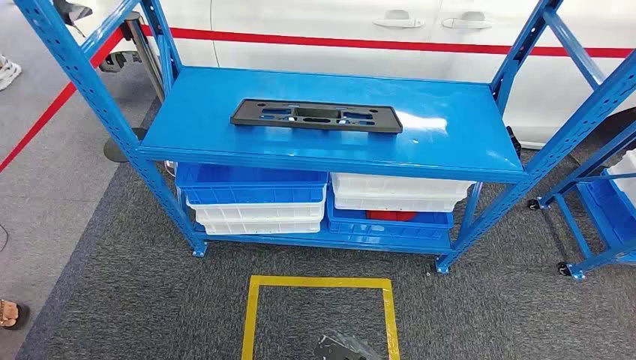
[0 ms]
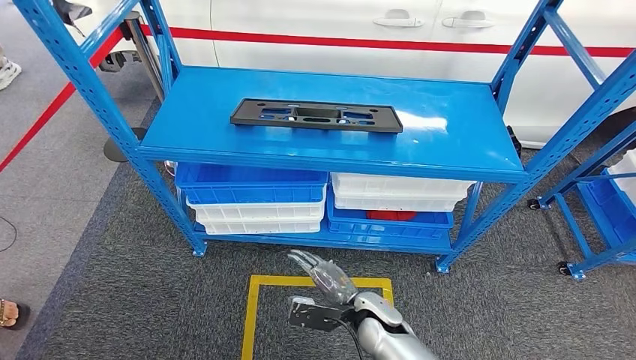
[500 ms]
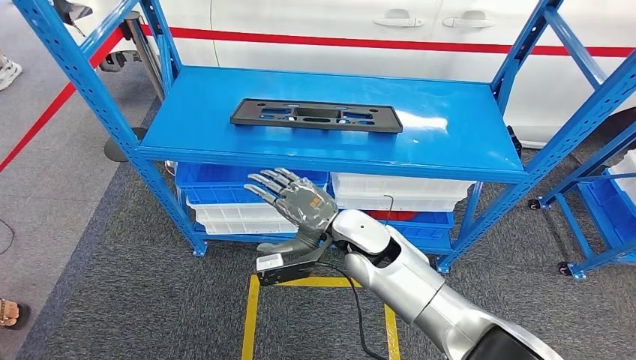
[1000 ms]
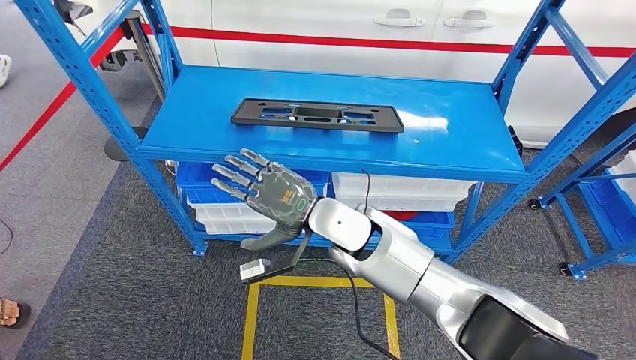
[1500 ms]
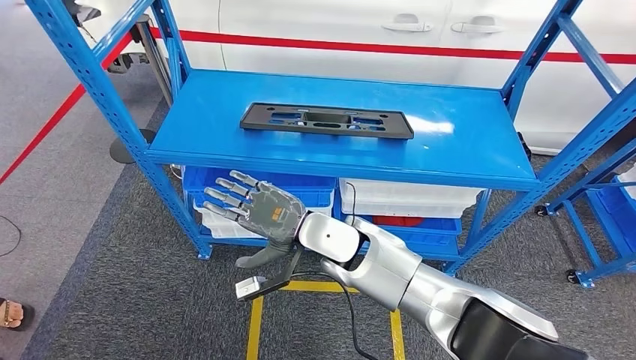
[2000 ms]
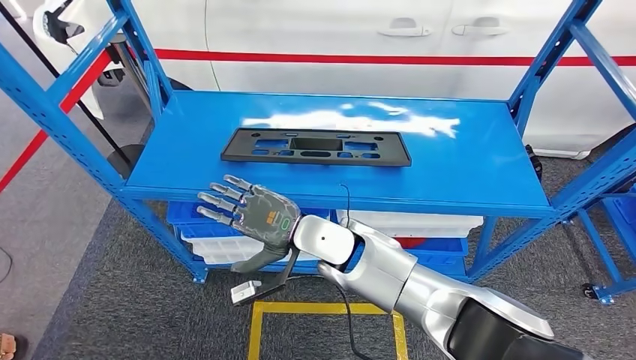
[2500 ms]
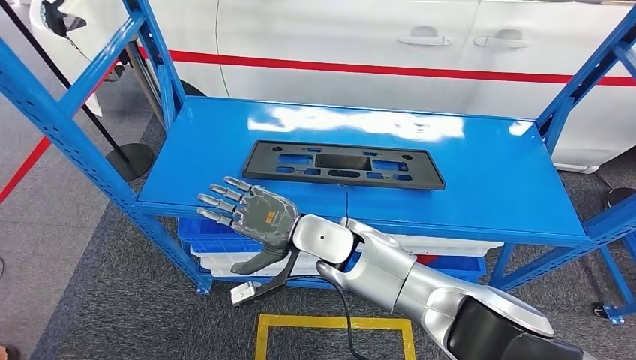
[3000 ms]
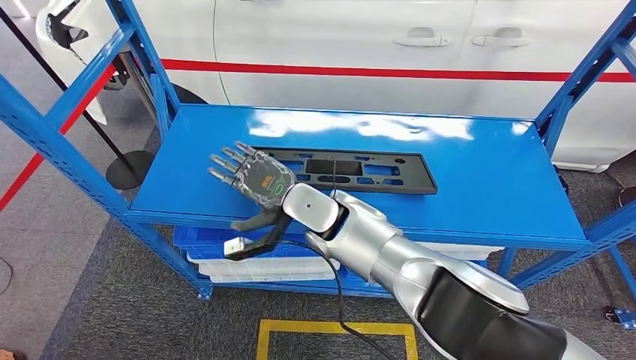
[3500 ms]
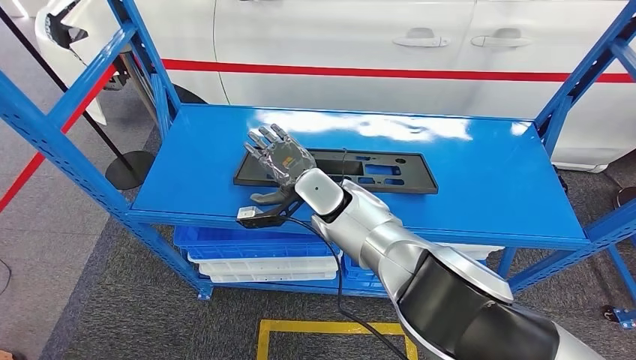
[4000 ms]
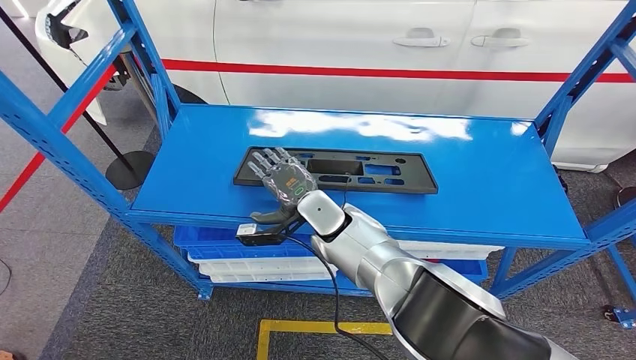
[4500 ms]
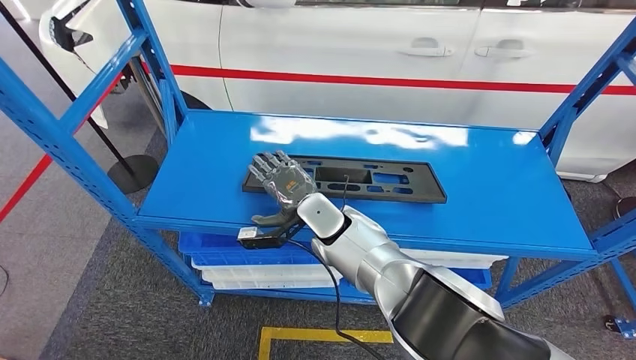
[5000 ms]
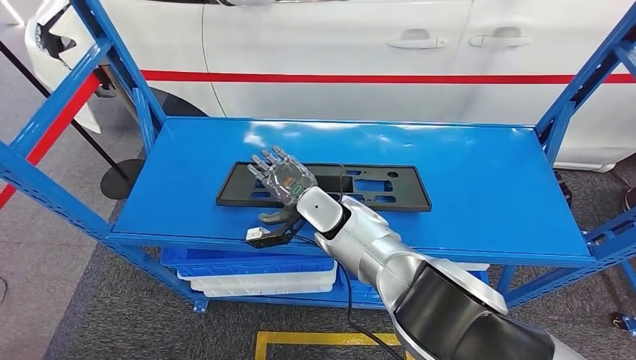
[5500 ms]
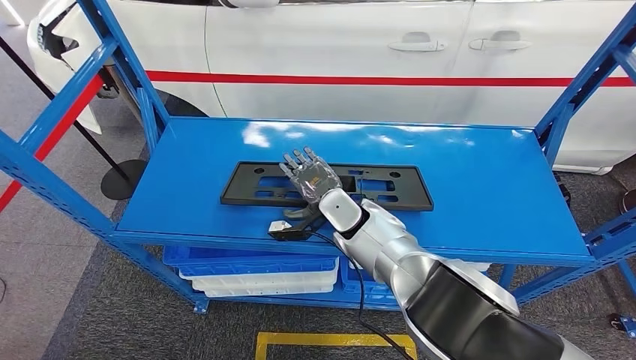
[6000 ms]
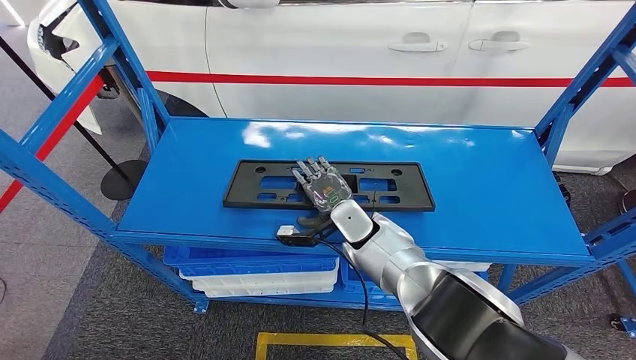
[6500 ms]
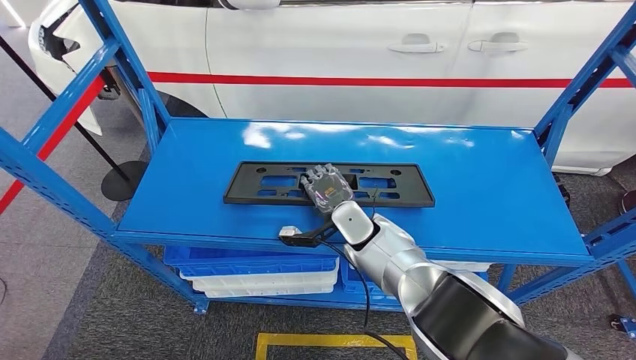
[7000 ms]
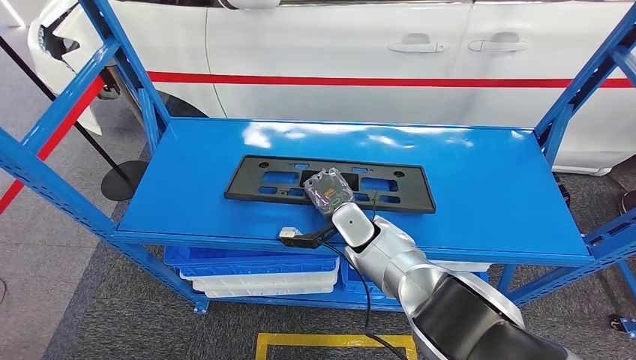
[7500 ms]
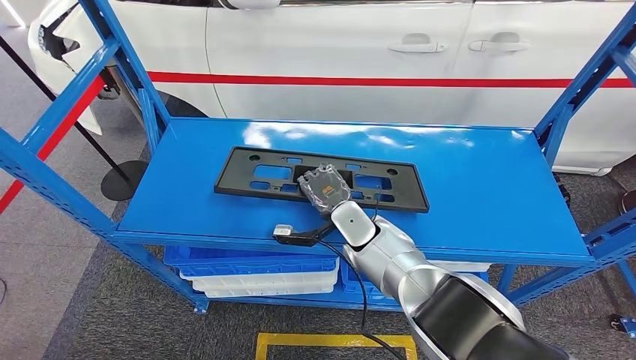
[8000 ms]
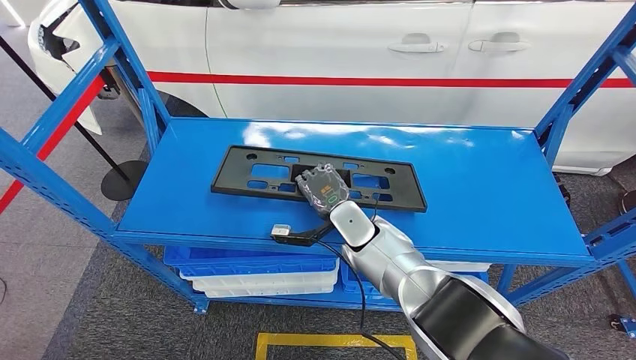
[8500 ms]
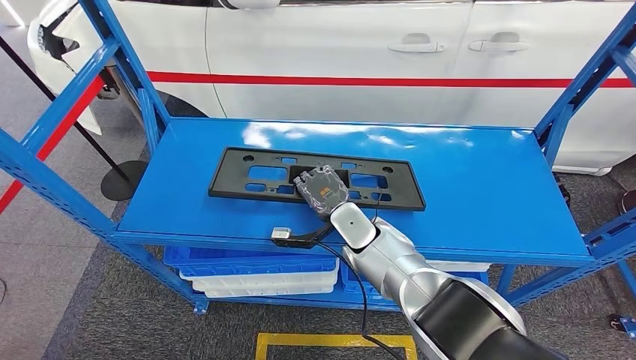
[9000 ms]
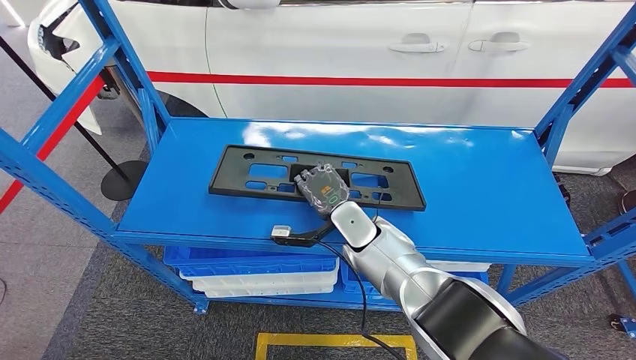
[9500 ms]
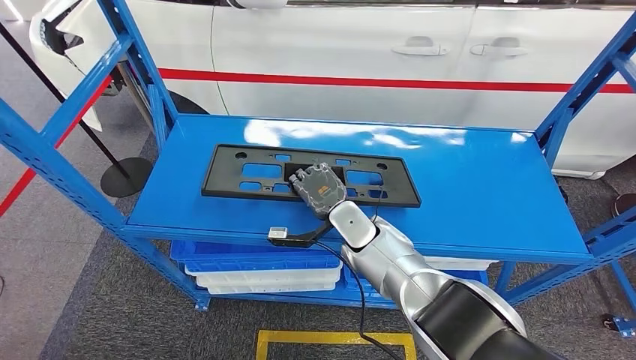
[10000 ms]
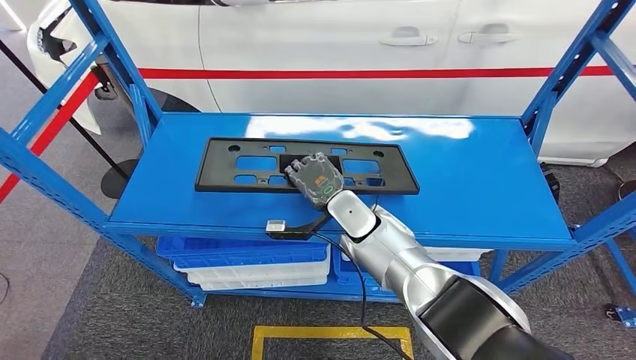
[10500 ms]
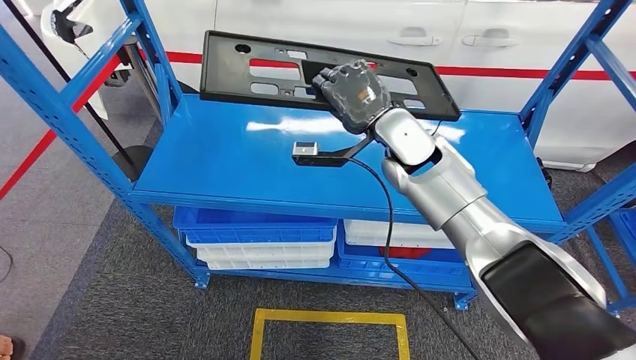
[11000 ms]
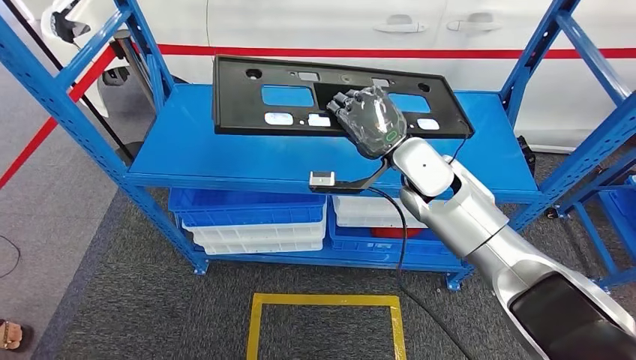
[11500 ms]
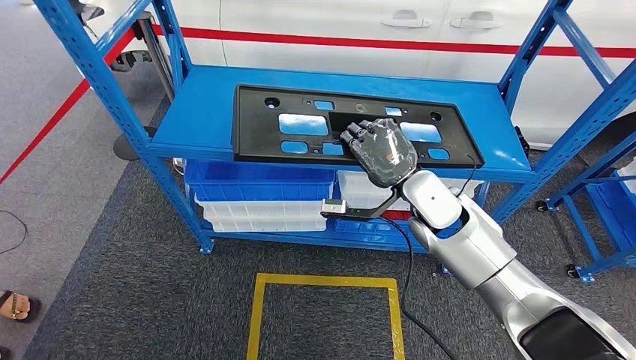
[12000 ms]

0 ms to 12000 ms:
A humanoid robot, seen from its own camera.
Step, 0 ms to 9500 ms: Pick up the large material from the shelf.
6000 ms to 8000 ms: The hands move only a little.

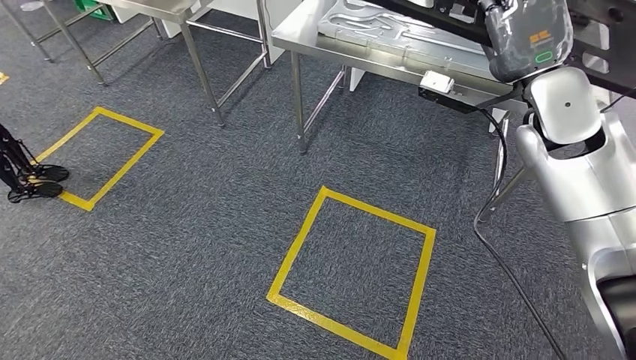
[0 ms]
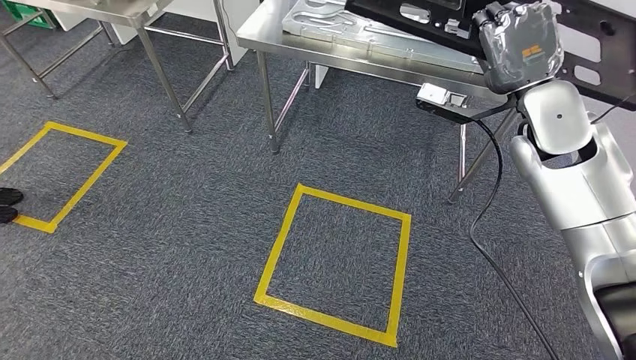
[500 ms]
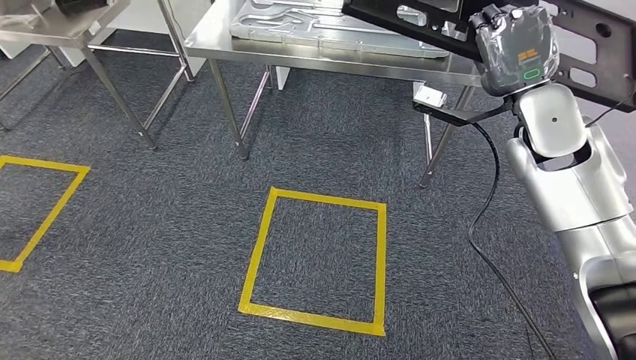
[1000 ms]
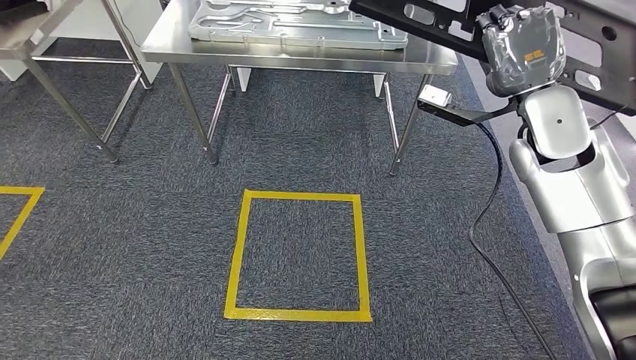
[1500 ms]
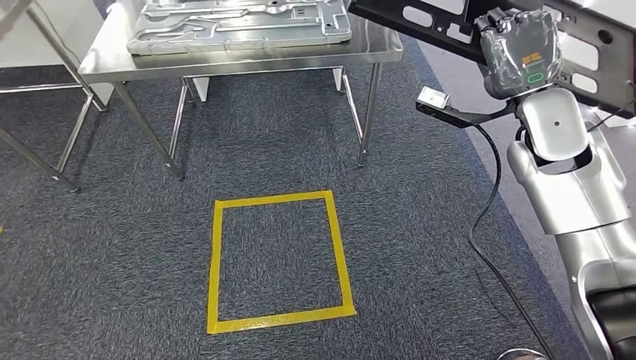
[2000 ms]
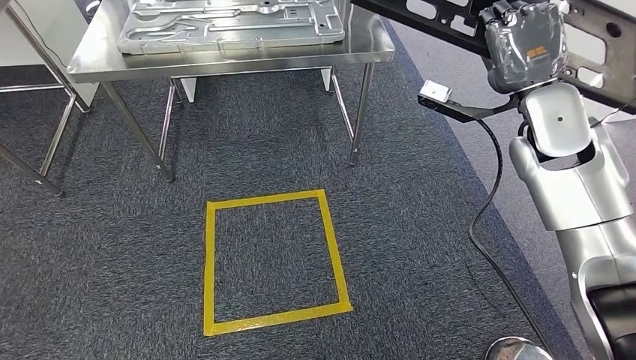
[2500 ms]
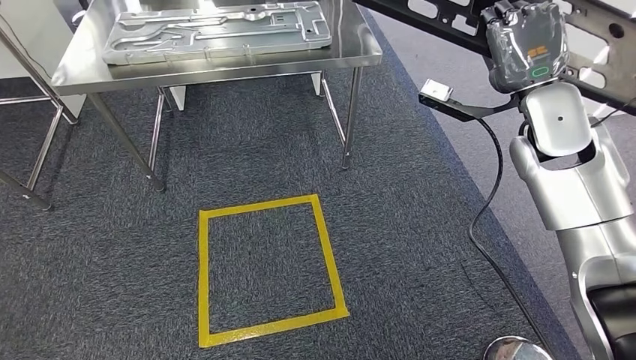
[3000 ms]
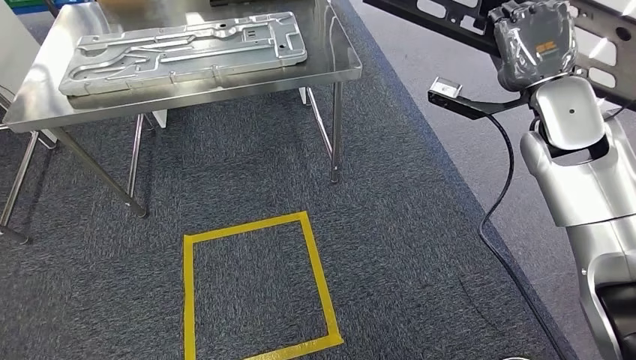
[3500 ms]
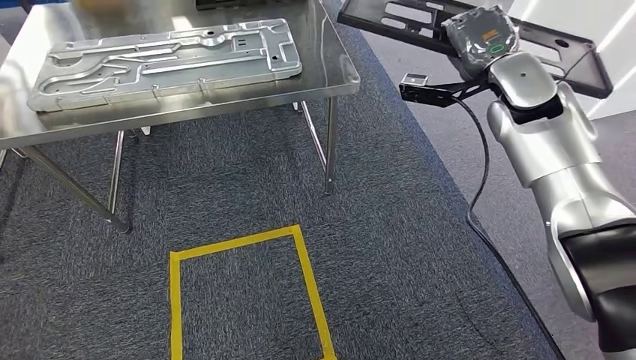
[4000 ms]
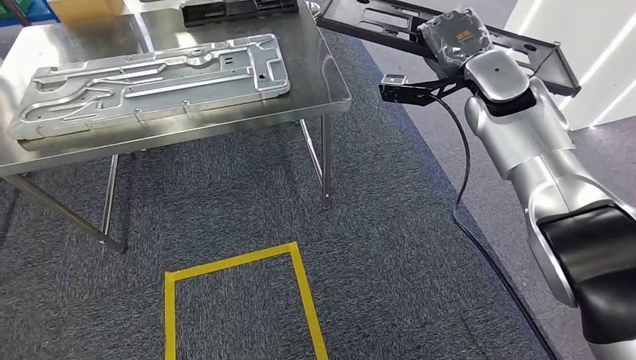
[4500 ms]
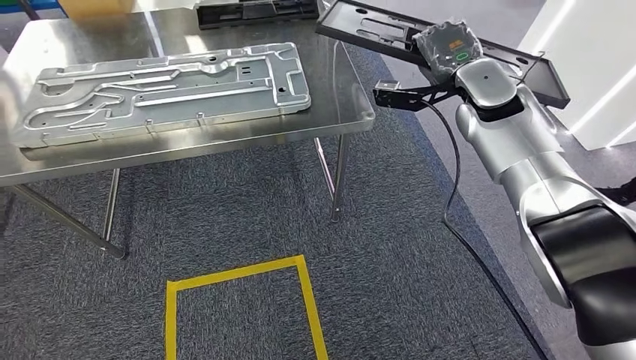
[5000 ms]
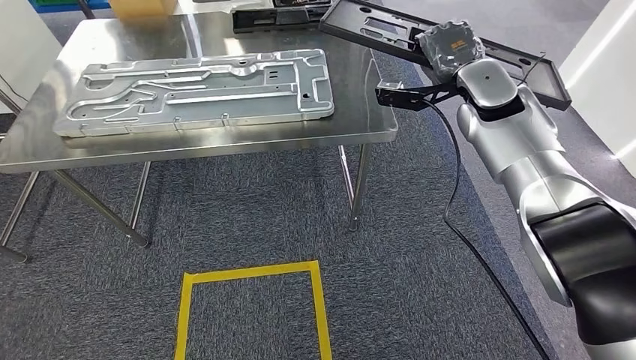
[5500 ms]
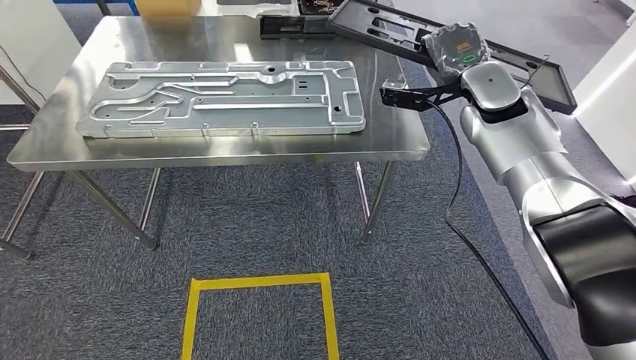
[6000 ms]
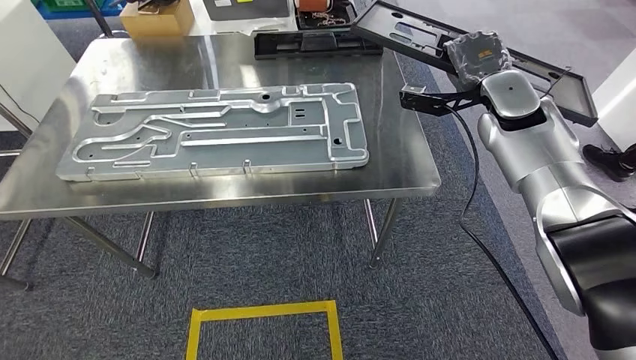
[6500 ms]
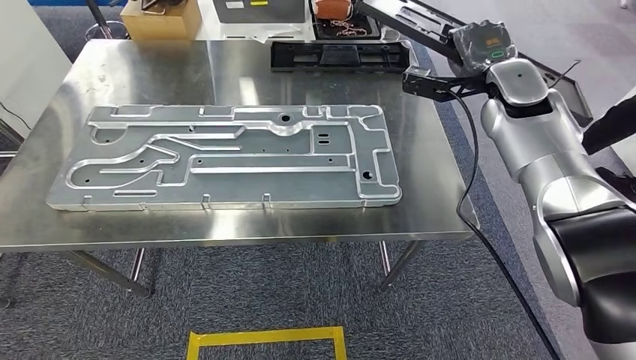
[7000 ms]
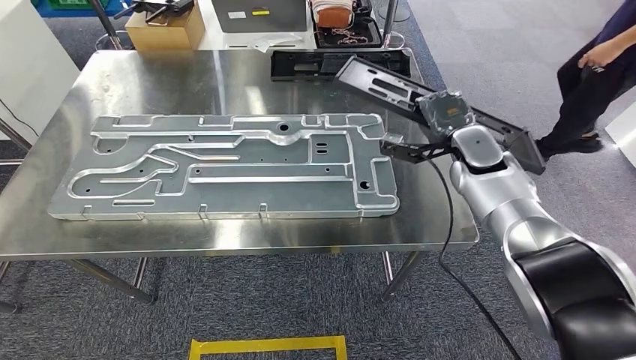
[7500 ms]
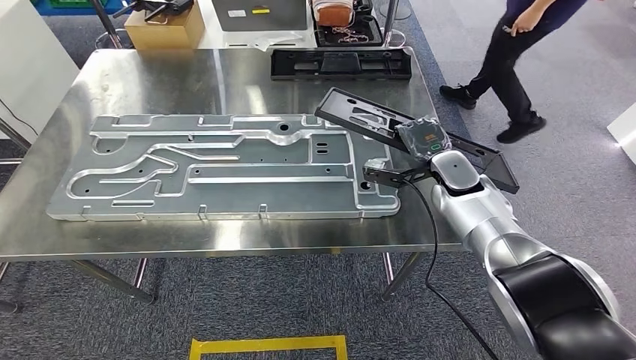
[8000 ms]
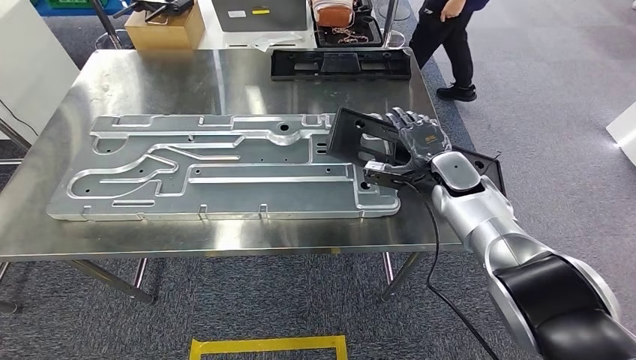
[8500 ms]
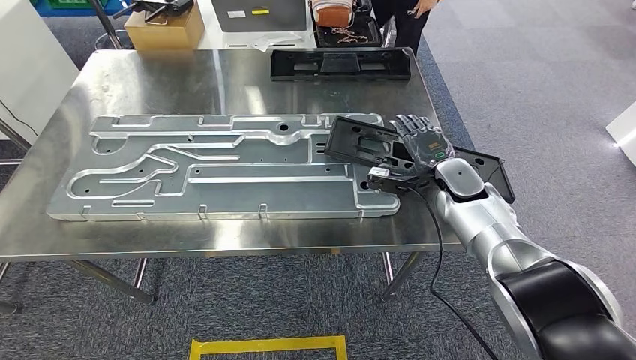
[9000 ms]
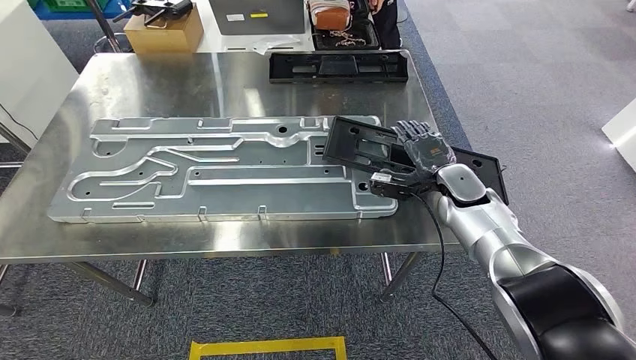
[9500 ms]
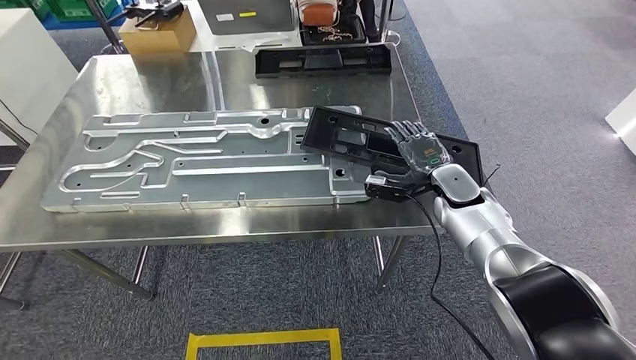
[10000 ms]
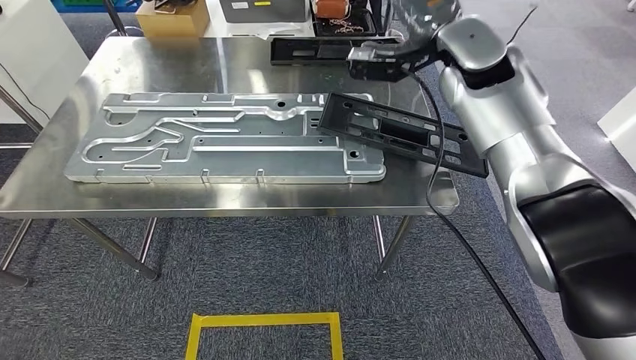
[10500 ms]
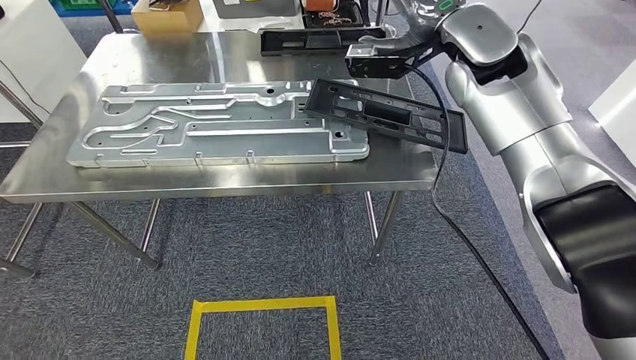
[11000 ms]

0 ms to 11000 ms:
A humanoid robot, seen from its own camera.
Step, 0 ms to 4000 ms: Move the large material to the workbench.
Step, 4500 ms to 10000 ms: Insert the large material into the corresponding slot on the workbench.
7500 ms to 9000 ms: The right hand shifts about 5 cm downward.
